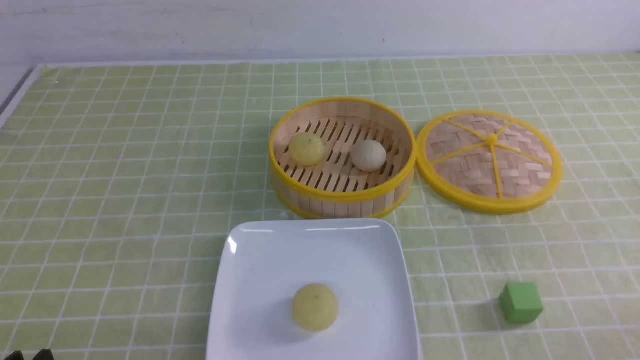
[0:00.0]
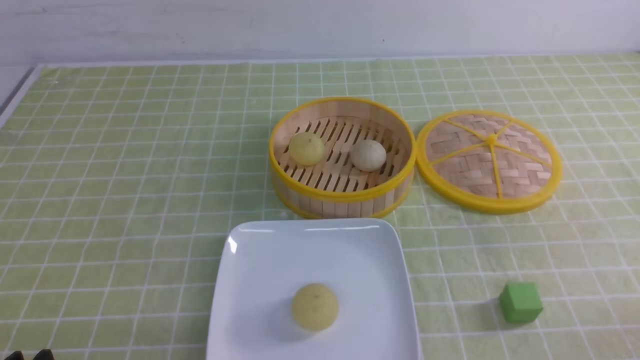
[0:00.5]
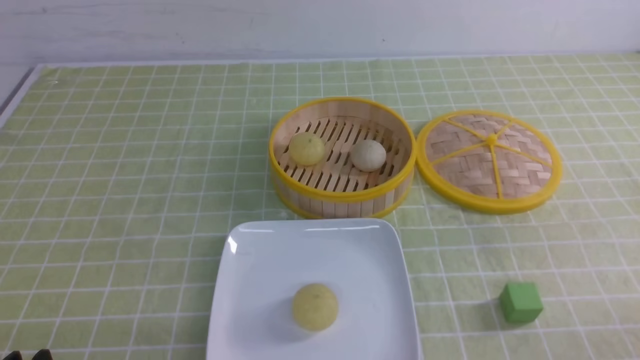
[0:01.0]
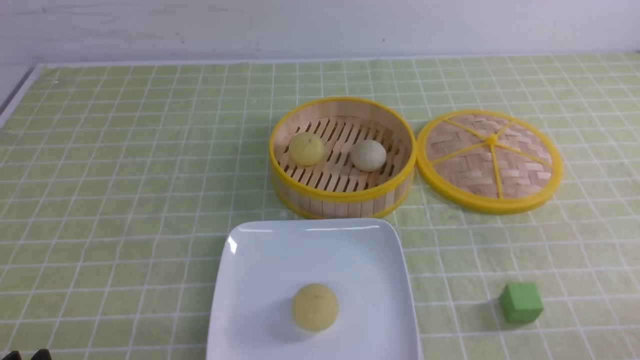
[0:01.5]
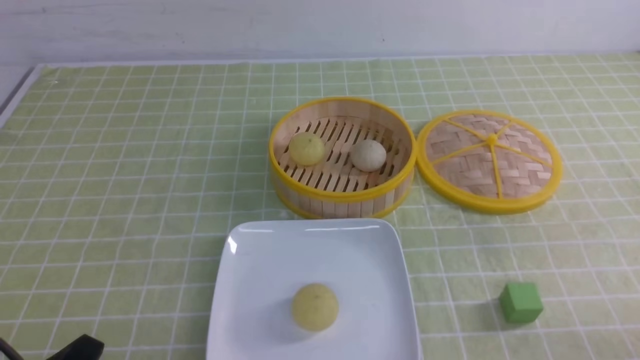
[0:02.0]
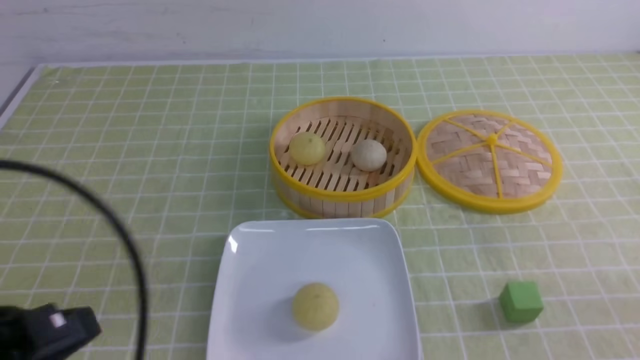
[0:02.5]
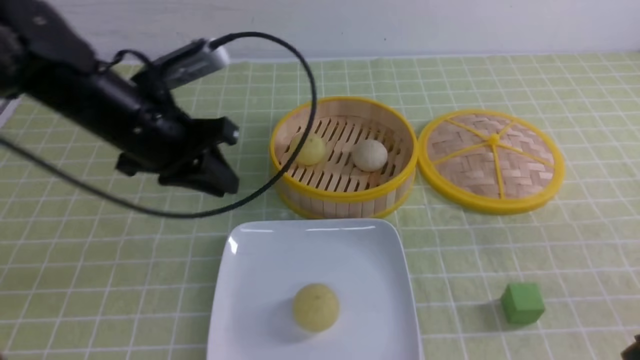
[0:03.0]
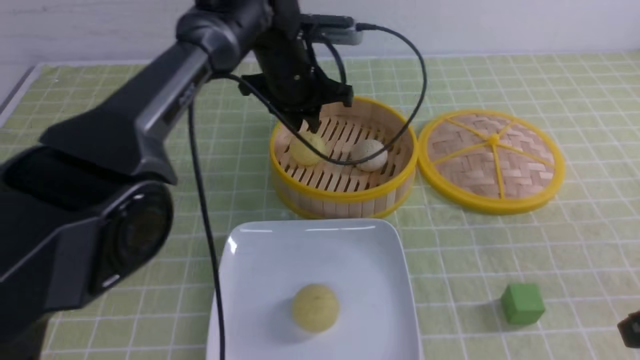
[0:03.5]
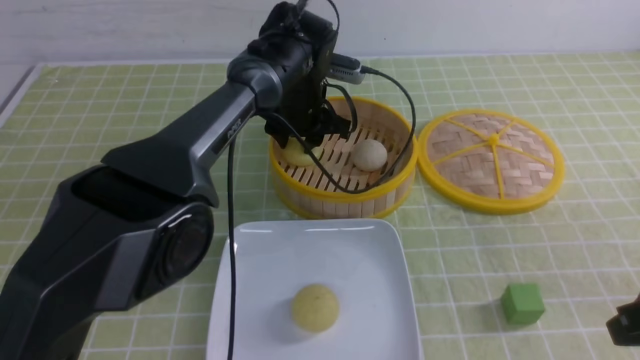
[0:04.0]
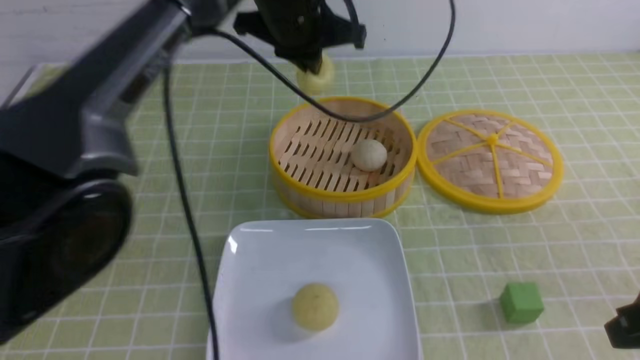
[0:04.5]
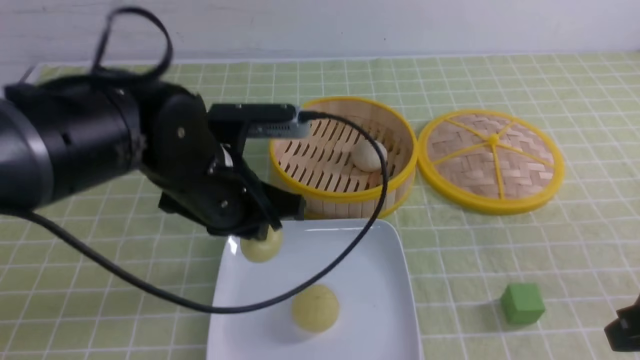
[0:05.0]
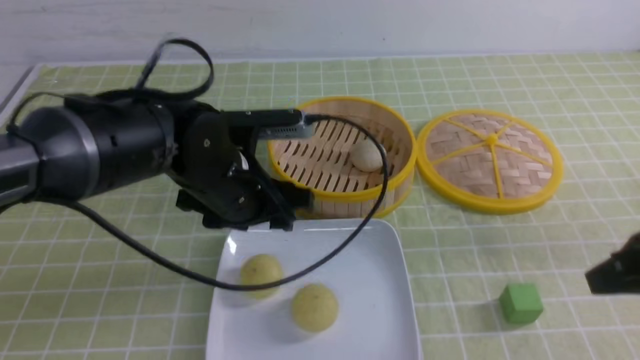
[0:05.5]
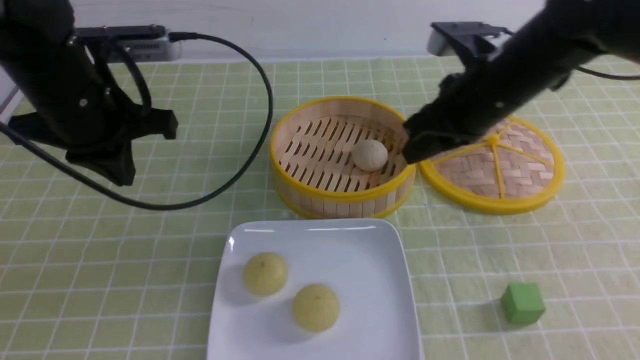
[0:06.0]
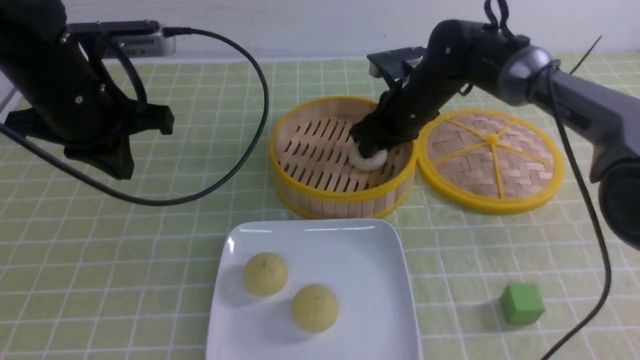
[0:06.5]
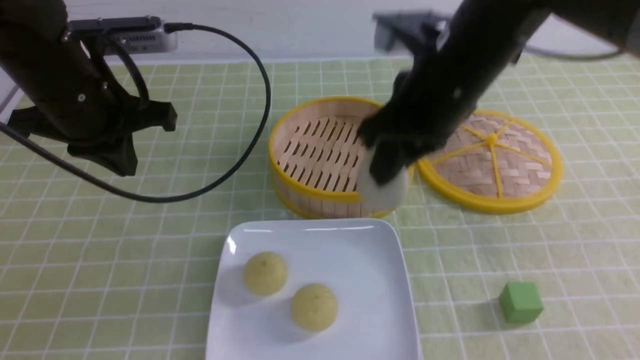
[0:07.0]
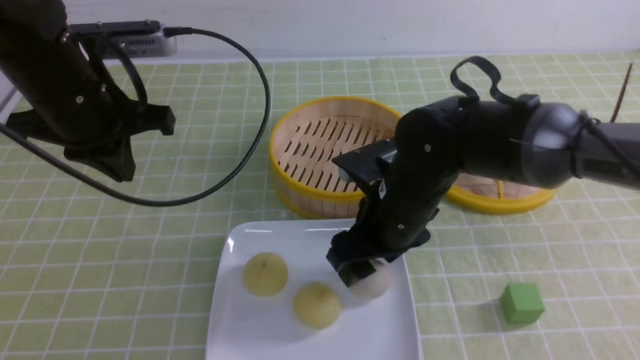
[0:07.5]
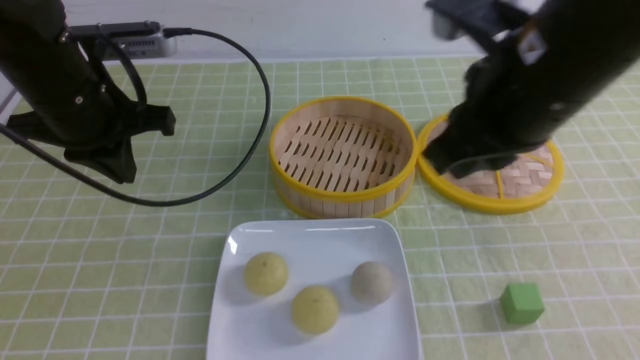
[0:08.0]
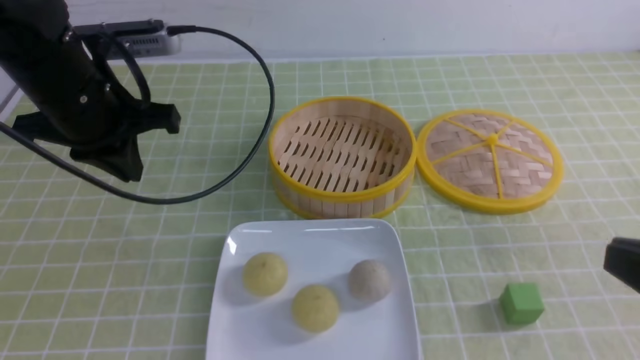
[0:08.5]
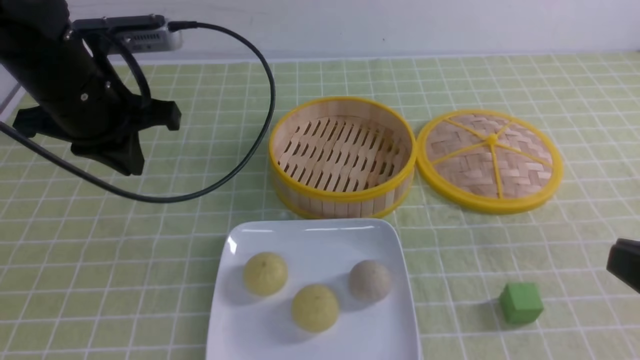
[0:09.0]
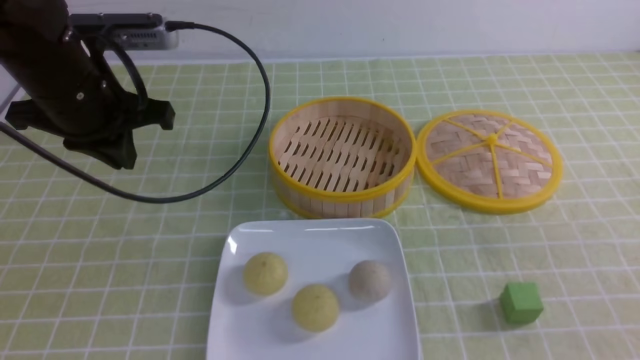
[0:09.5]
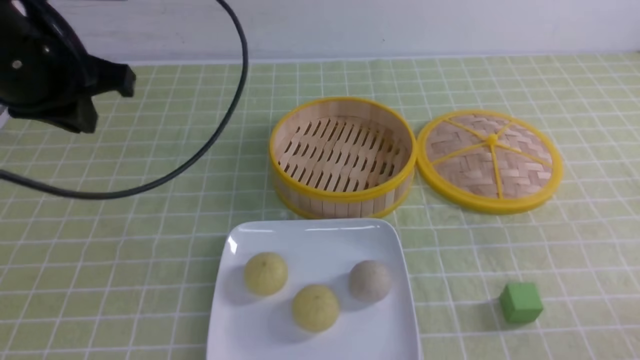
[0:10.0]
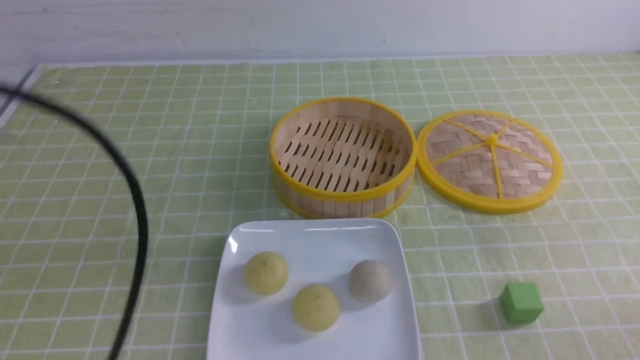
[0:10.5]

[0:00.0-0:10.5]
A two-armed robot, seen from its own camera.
Step, 0:00.0 to 0:04.0: use the left arm to grab the steamed stuffed bun that is closest to it.
Step, 0:04.5 to 0:05.0: use the left arm to put the steamed stuffed bun into the plate.
Step, 0:05.5 to 0:06.5: use the right arm to grab the steamed stuffed bun that is closest to it.
Step, 0:07.0 to 0:07.5: use the right arm to put the steamed stuffed bun into the plate.
0:02.0 to 0:04.0: The right gripper goes some 15 cm forward and upward, and closes its fingers. The left gripper travels forward and to the right by some 50 cm, and closes, then opens again.
0:04.0 to 0:06.5: The left gripper goes approximately 25 cm to the left, backward and upward, and closes, while the right gripper heads forward and to the left, covering about 35 cm, and opens up.
0:06.5 to 0:08.5: The right gripper travels backward by approximately 40 cm, and closes.
0:08.5 to 0:10.5: The right gripper is displaced downward and to the right by approximately 15 cm; the left gripper shifts roughly 25 cm backward.

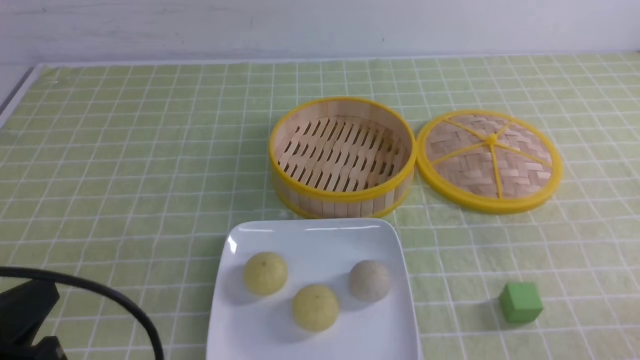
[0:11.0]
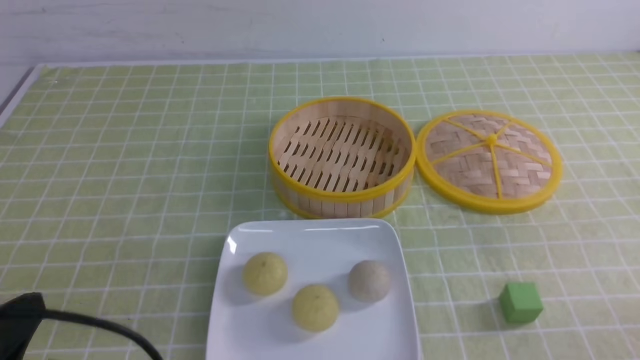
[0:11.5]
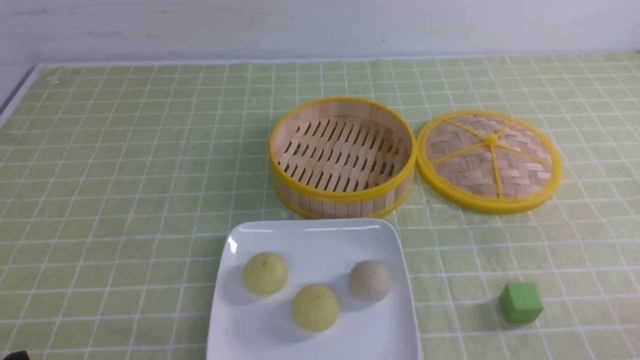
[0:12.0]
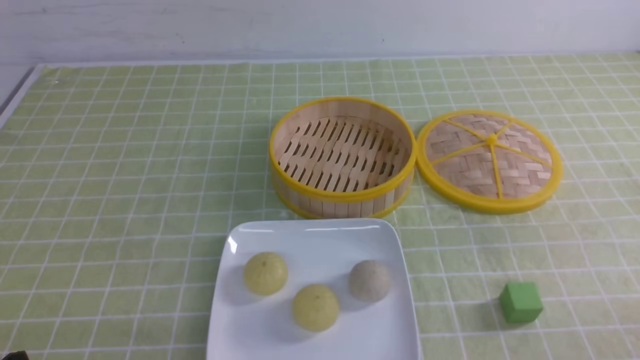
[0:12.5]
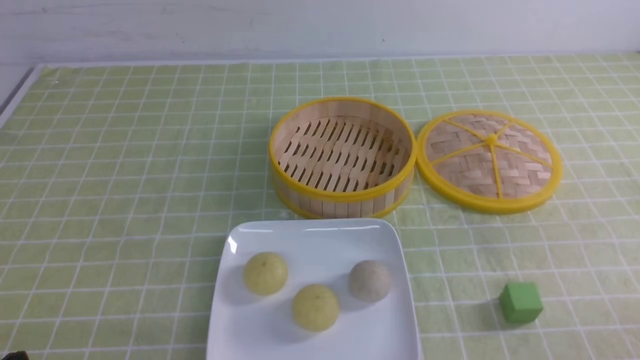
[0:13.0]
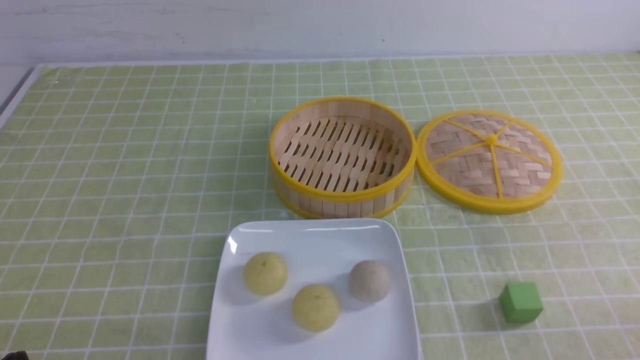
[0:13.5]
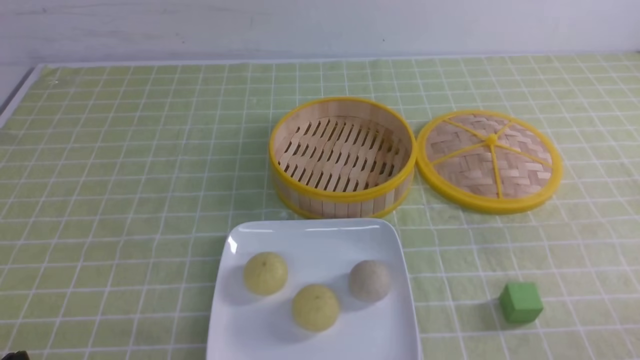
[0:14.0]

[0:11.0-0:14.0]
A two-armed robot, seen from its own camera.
0:11.0 to 0:12.5: The left gripper goes roughly 10 cm downward.
0:12.5 to 0:14.0: Neither gripper changes place.
